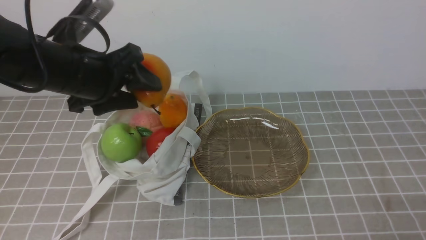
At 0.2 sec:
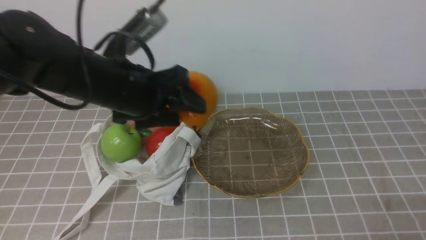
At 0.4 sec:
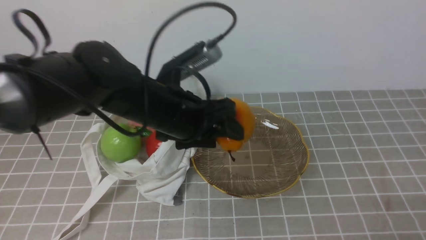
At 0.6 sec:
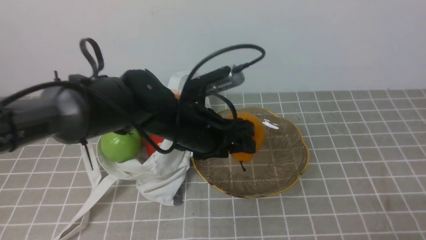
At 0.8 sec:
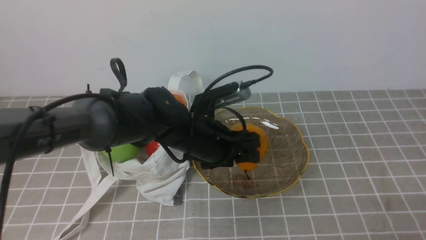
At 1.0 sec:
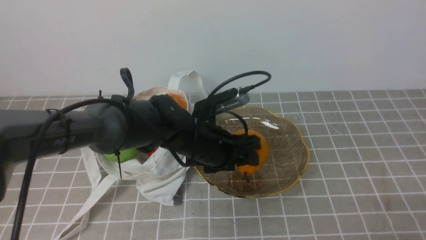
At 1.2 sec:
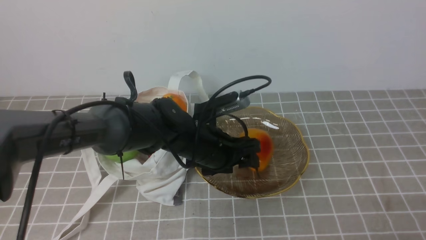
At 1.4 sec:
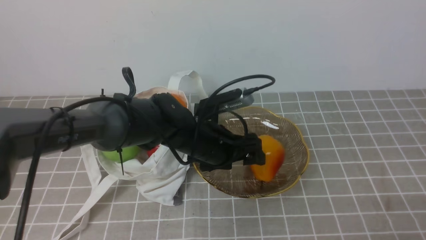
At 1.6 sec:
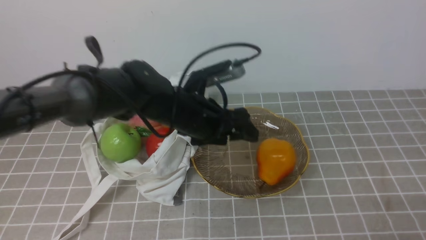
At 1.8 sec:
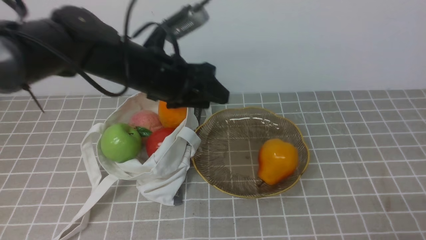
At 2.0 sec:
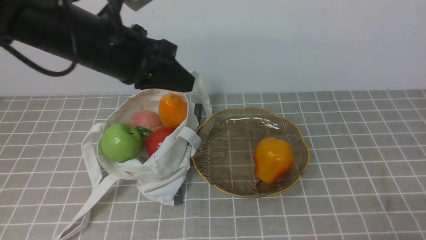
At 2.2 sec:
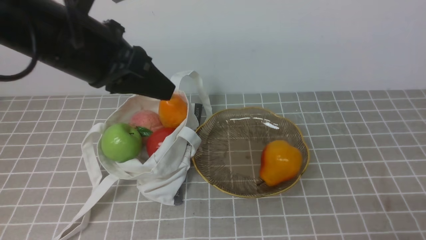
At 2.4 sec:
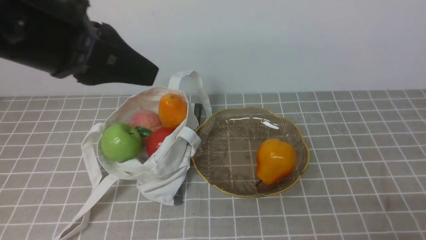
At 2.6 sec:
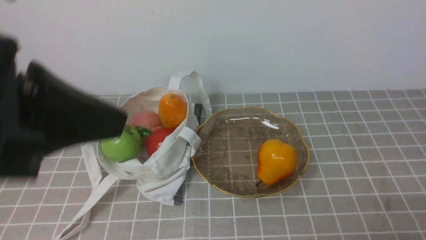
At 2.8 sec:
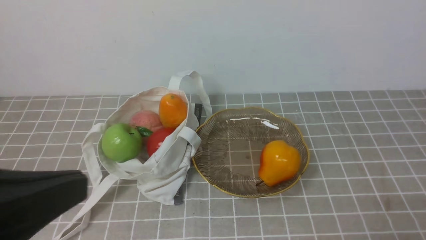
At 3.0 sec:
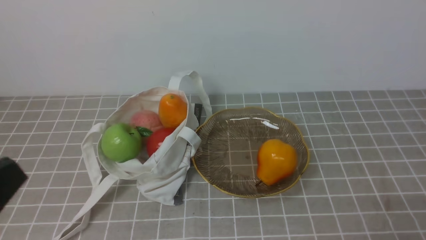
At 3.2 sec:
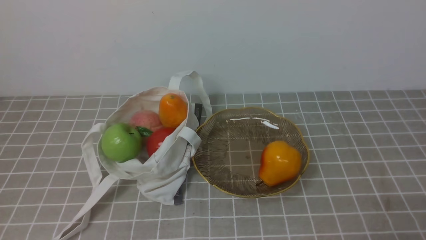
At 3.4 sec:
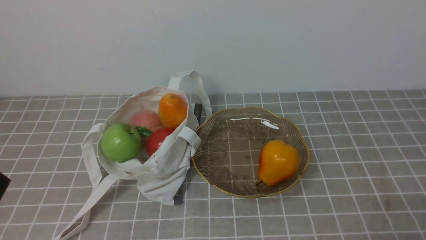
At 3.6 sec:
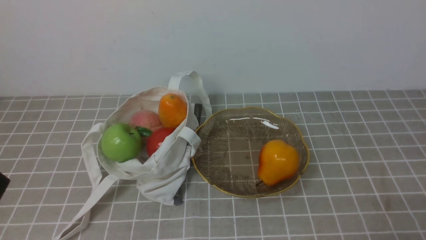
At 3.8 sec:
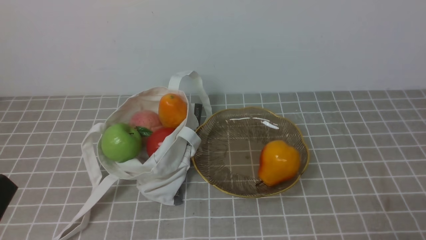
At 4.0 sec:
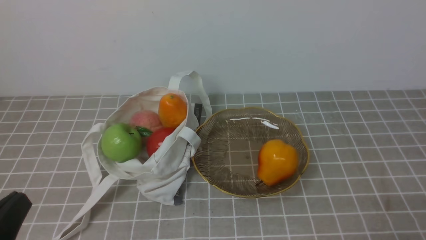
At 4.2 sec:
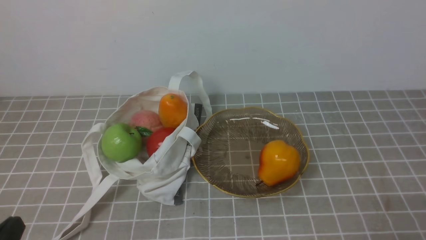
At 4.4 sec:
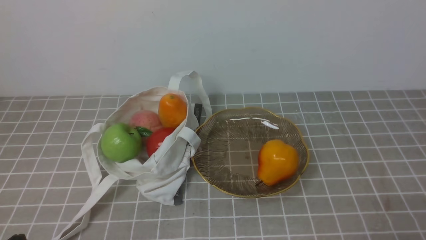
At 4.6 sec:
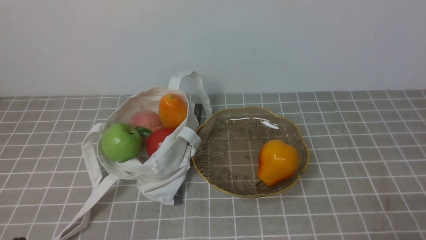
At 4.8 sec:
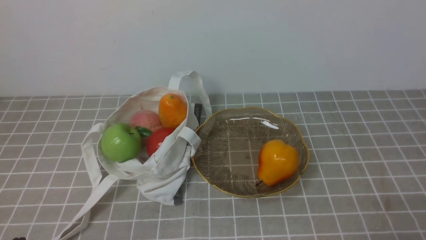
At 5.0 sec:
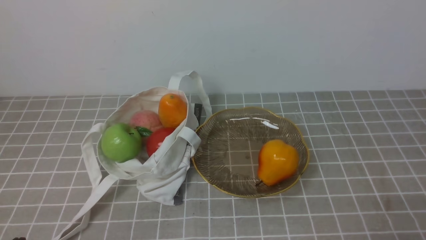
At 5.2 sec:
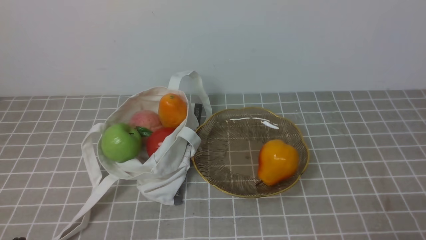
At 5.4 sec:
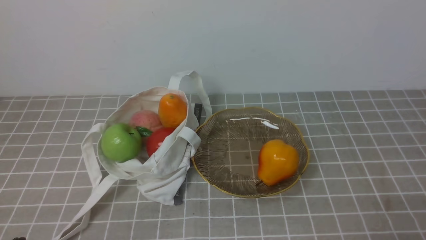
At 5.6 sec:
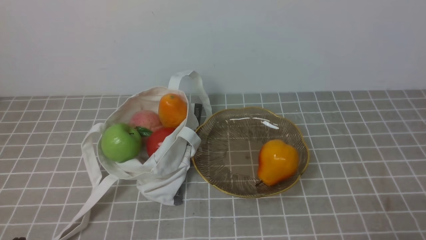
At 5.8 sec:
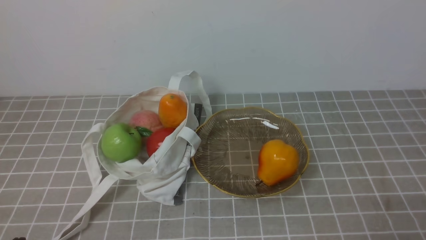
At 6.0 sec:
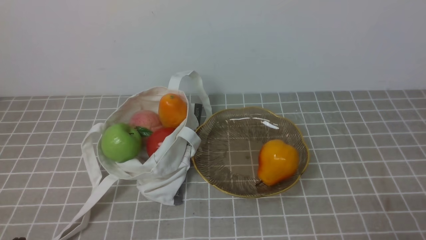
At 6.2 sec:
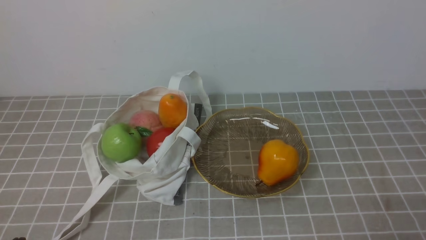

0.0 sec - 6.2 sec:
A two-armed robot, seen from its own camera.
Step, 0.0 sec - 1.6 sec: use the left arm to put the pear into the empty plate on the right.
0.0 sec - 1.6 sec: The left gripper goes some 15 cm to the right and downward.
1.6 sec - 3.2 sec: The left gripper heads backward and to the left, covering roughly 35 cm, and closes its fingers.
4.6 sec - 6.2 sec: Both grippers stay put.

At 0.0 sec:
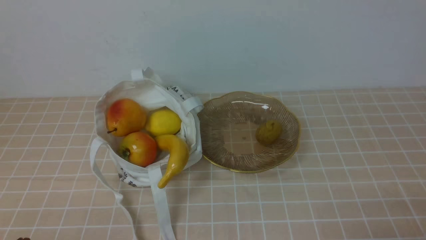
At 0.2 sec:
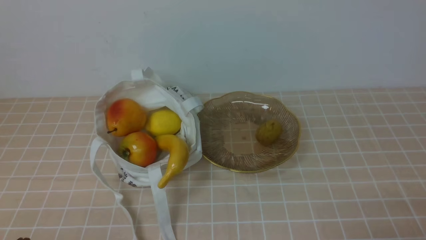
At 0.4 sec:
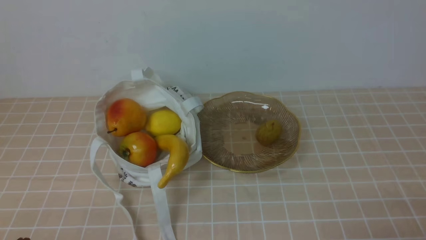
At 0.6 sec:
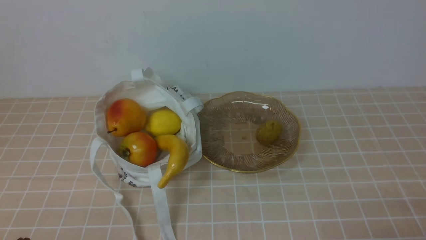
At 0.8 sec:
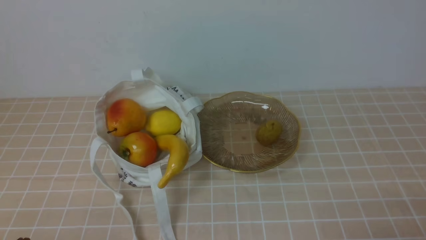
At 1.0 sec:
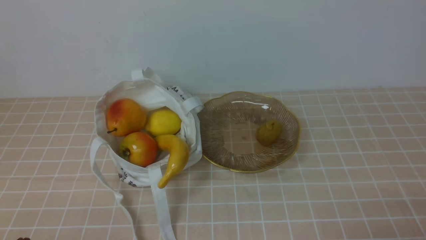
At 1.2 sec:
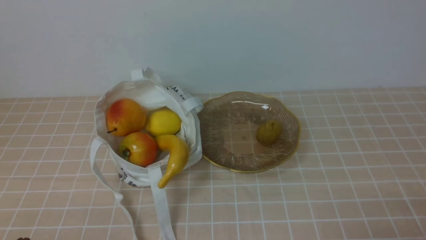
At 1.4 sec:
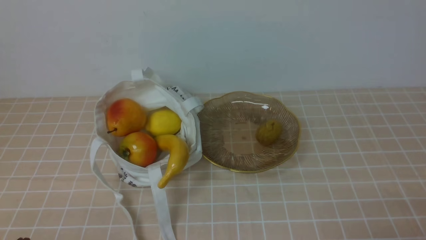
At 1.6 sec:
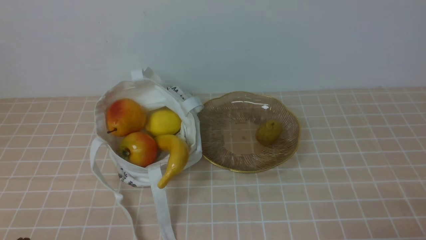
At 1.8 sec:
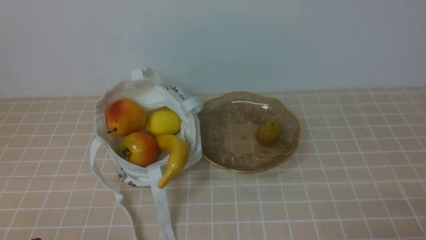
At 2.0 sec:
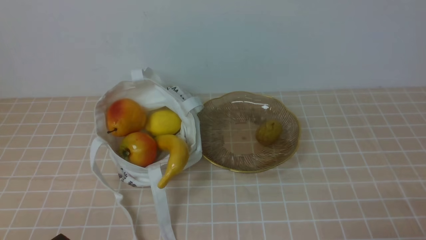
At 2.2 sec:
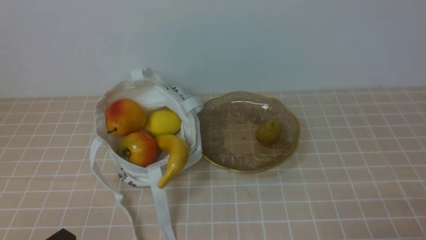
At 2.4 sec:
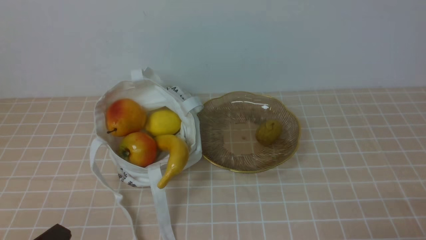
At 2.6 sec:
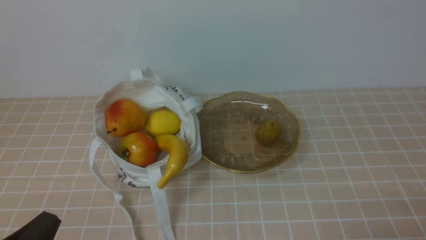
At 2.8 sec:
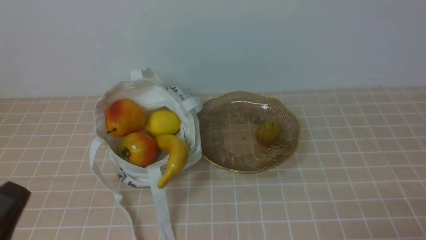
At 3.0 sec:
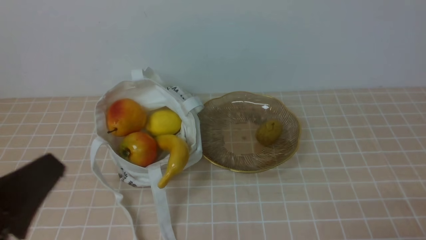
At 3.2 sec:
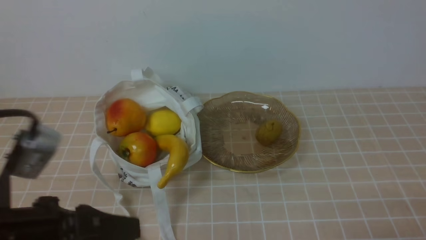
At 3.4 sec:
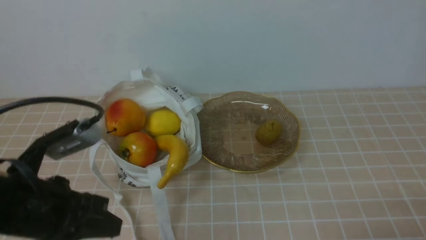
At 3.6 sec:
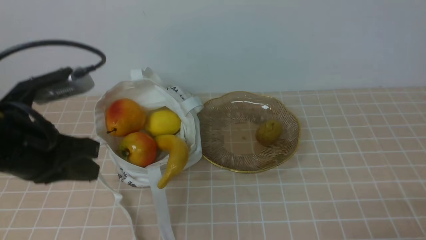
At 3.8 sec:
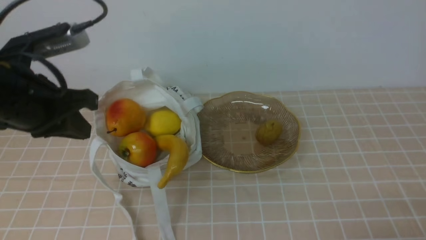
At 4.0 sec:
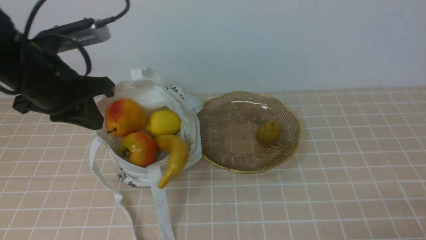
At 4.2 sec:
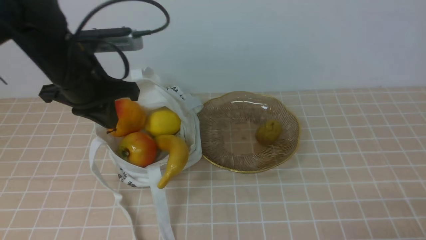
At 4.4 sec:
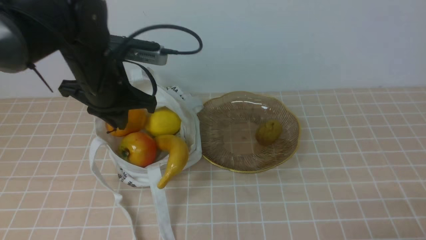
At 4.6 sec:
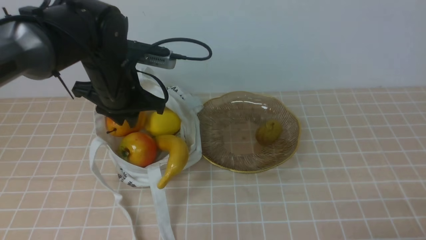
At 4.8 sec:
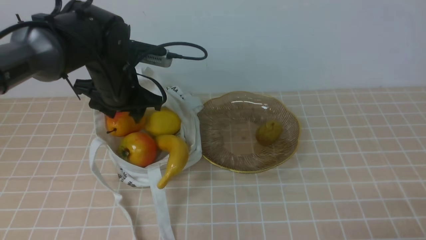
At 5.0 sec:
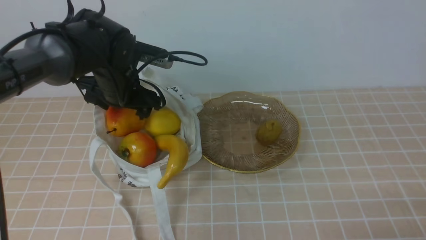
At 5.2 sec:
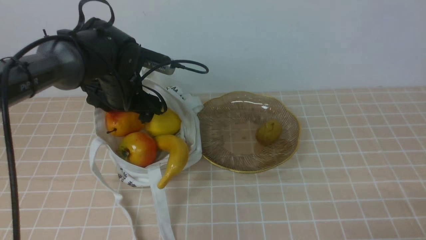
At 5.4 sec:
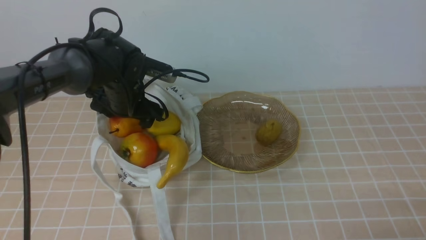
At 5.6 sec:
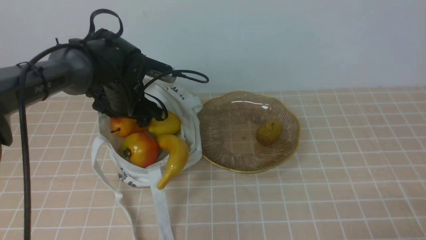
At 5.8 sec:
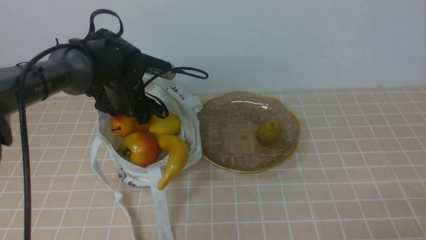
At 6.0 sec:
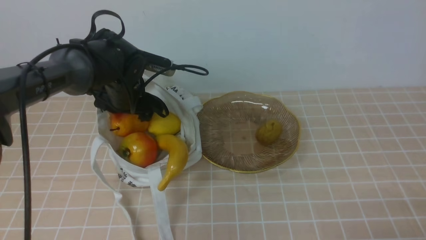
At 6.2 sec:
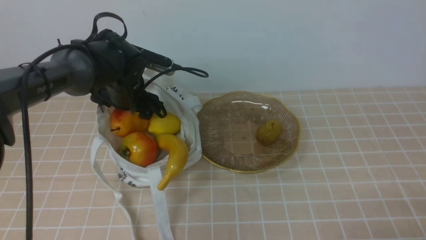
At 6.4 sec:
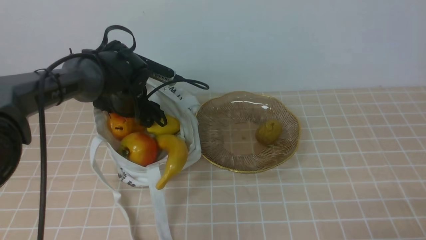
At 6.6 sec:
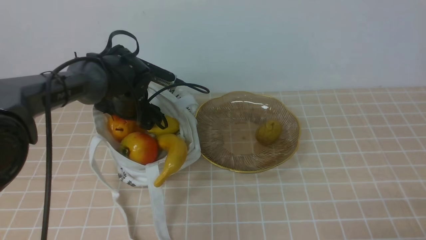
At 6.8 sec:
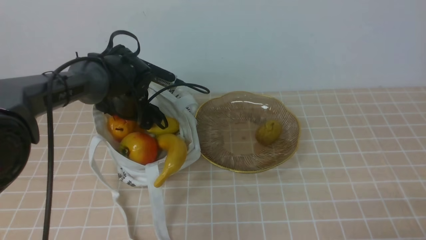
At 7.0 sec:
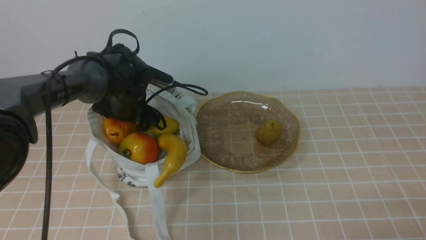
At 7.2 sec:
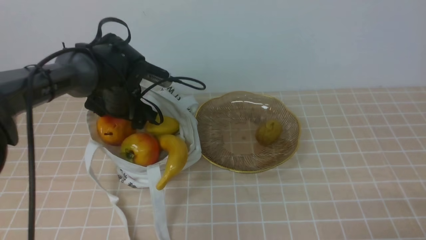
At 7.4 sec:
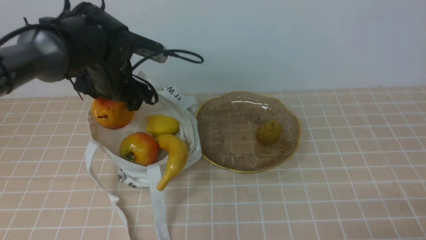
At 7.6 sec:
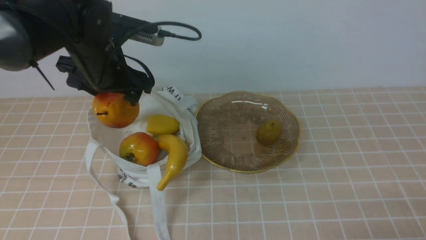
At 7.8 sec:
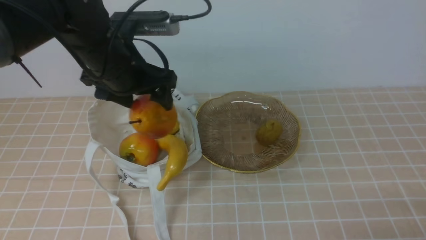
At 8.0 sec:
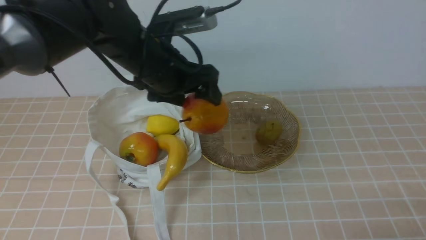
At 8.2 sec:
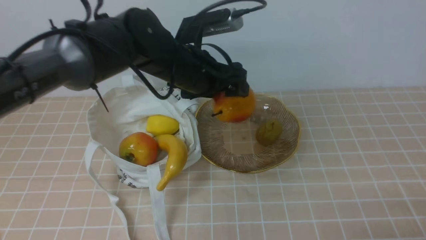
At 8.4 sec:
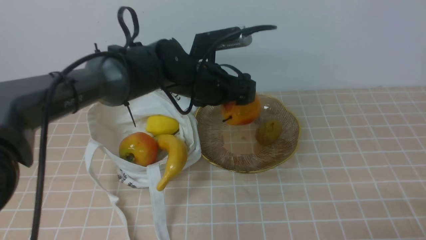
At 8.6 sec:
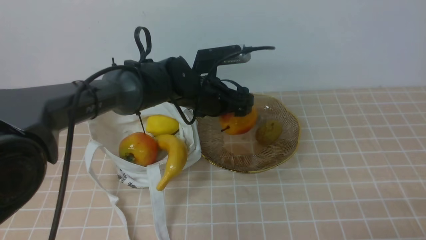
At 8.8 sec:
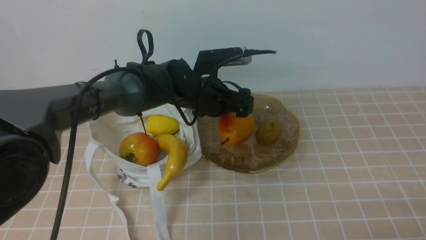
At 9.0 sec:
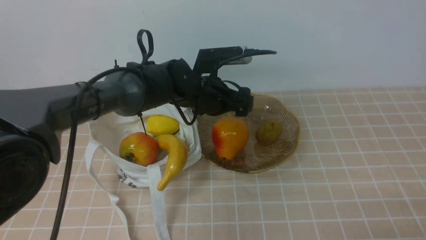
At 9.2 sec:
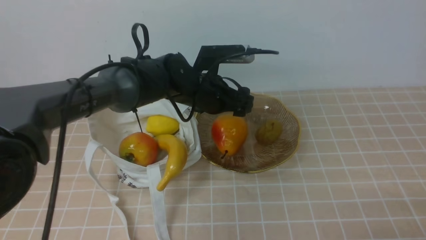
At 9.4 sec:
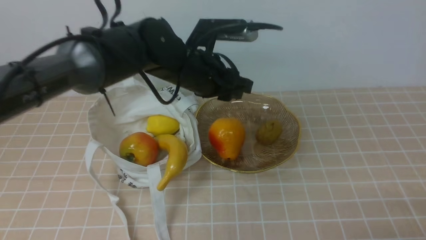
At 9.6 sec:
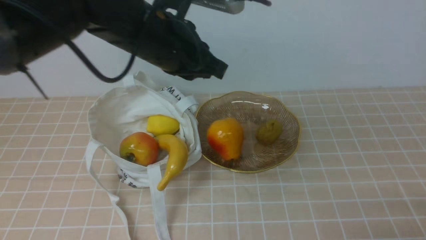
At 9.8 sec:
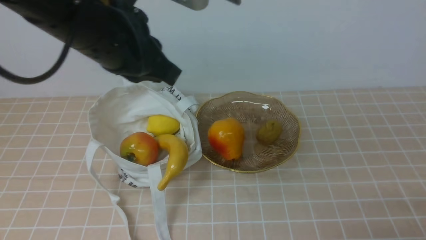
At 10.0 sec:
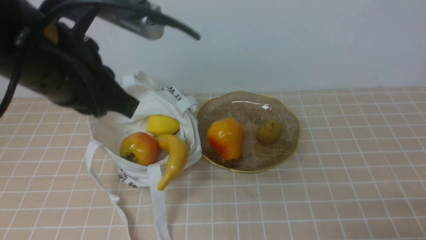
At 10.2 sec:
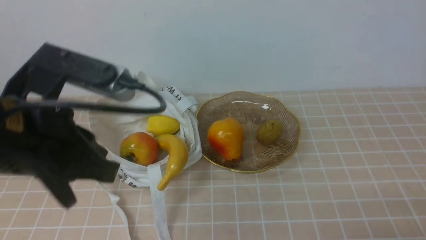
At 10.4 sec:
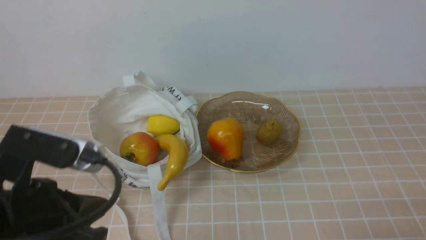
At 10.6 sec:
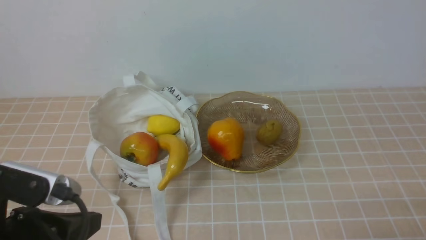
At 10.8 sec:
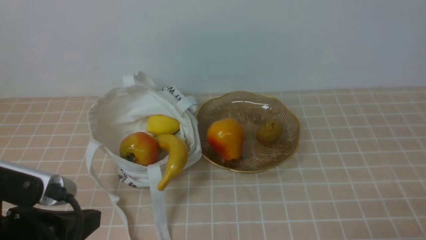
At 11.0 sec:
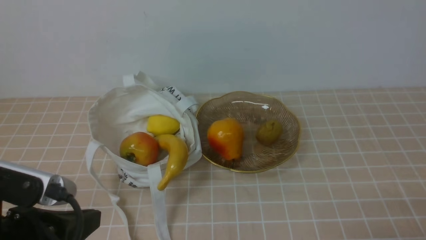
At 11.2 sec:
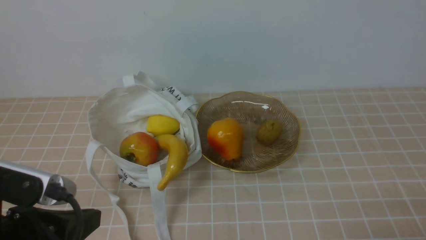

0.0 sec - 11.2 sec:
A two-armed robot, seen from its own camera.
Step, 0.0 sec - 7.4 sec: use the left arm to grab a pear from the bag.
Step, 7.6 sec - 8.8 sec: use the left arm to put the pear into the empty plate on the right.
1.6 sec - 3.2 sec: The left gripper goes about 15 cm upward and to the right.
3.2 sec - 4.8 sec: The left gripper moves forward, some 30 cm, and opens its fingers.
4.8 sec - 6.4 sec: The left gripper travels downward and forward by about 10 cm, and opens up.
6.4 sec - 8.0 sec: The left gripper moves upward, backward and to the right, approximately 15 cm.
8.0 sec - 9.6 sec: The left gripper reaches about 10 cm downward, then returns, and closes up.
9.6 sec - 11.2 sec: The left gripper moves backward and to the left, about 30 cm.
